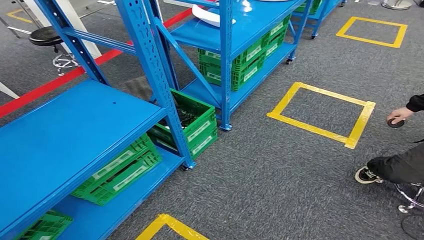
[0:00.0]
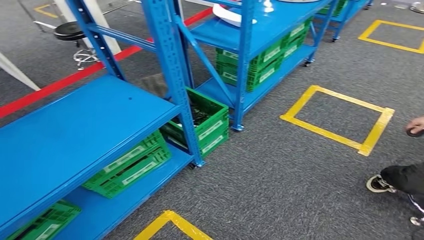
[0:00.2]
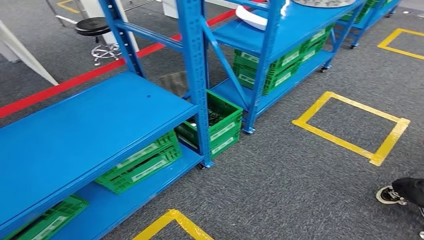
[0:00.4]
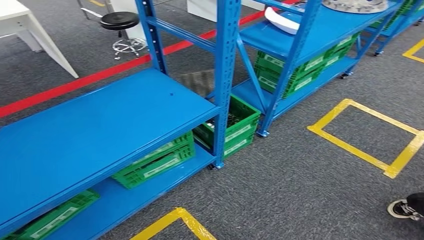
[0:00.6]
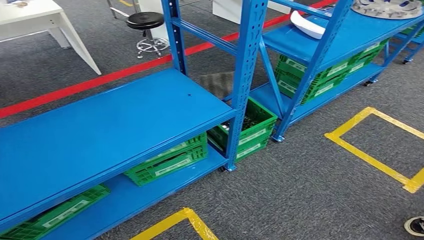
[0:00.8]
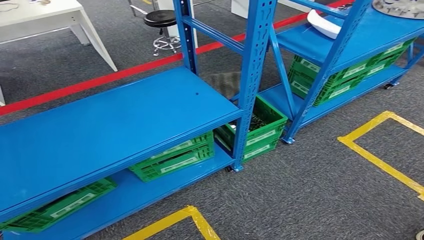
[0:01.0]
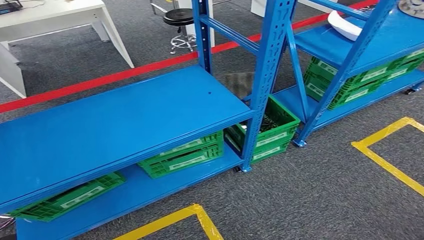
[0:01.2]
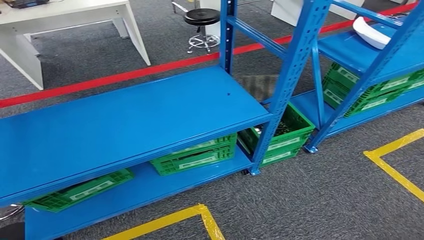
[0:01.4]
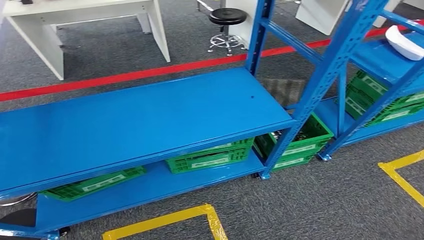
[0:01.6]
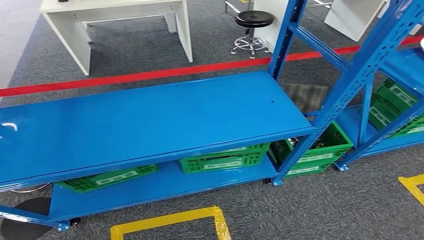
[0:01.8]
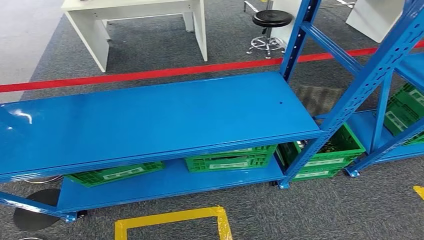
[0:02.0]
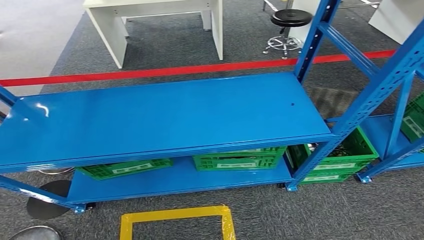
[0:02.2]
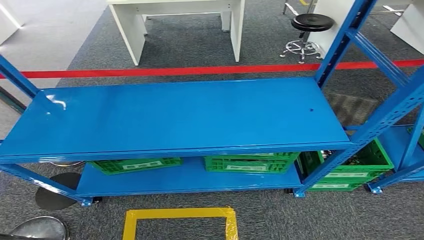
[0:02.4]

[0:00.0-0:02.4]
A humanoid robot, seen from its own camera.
Step, 0:00.0 to 0:02.4: Move to the initial position at the workbench.
